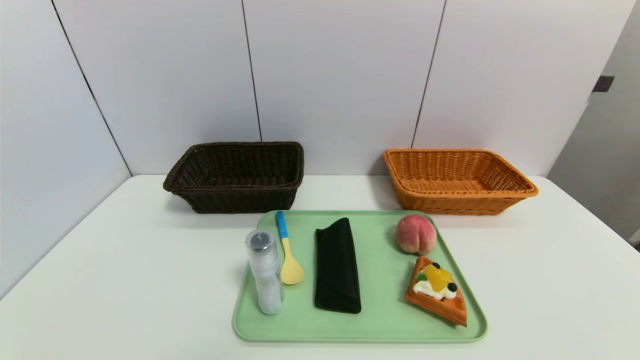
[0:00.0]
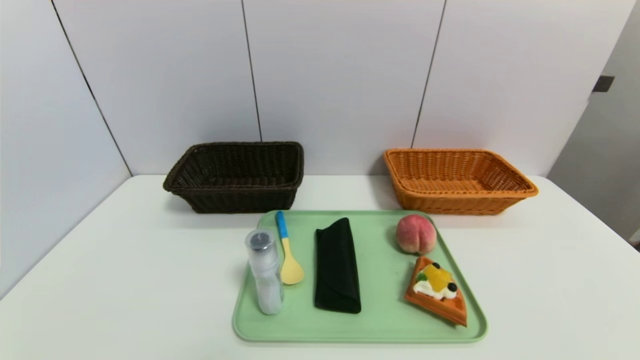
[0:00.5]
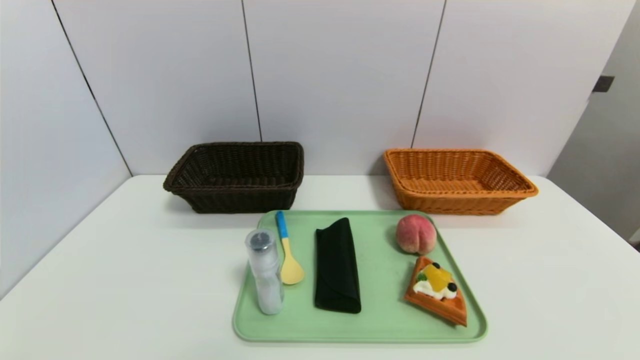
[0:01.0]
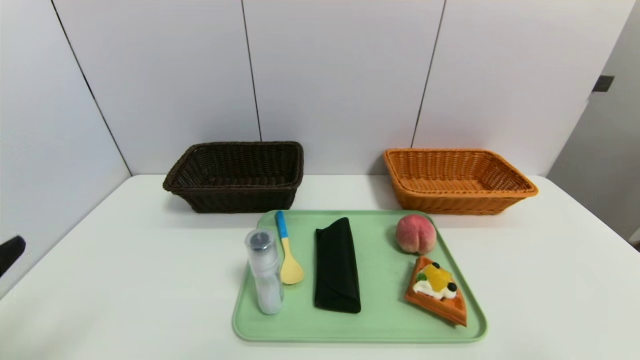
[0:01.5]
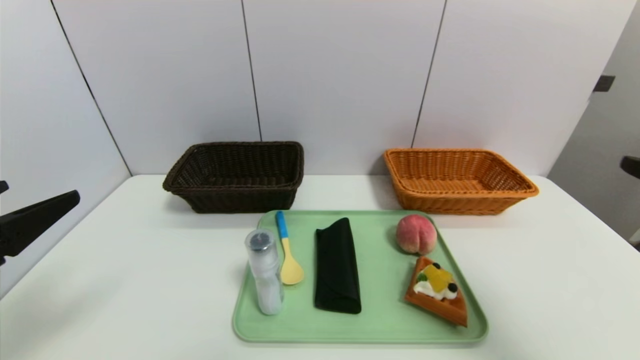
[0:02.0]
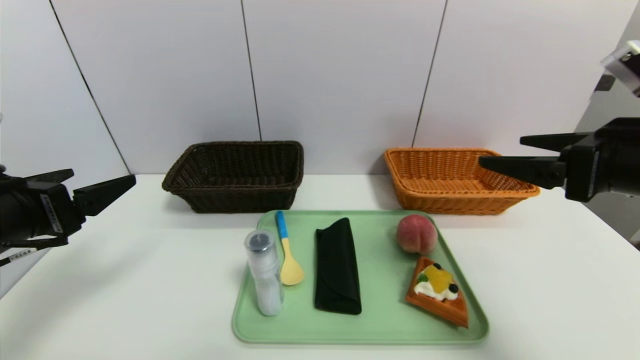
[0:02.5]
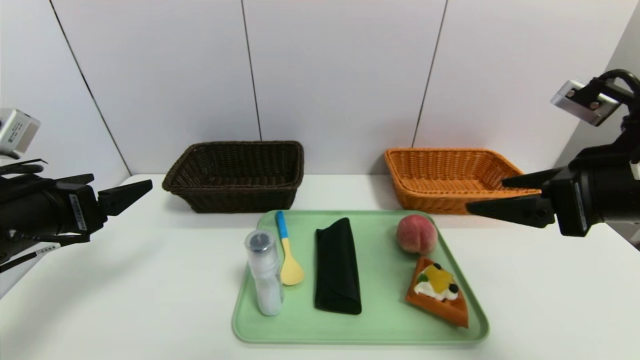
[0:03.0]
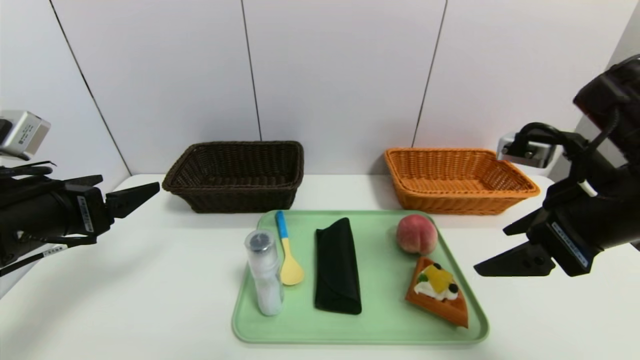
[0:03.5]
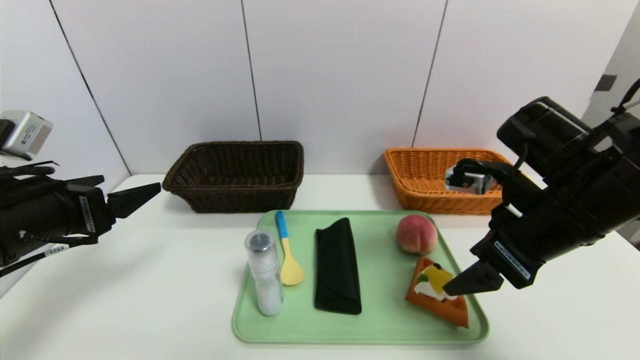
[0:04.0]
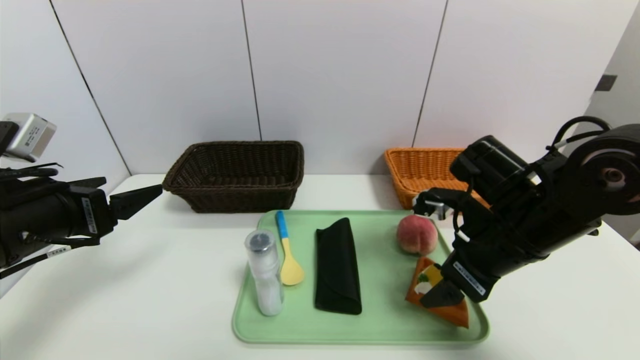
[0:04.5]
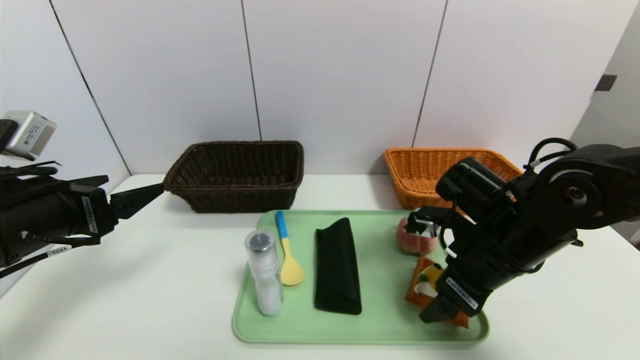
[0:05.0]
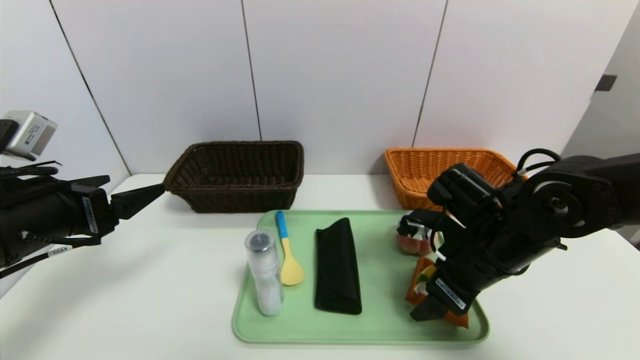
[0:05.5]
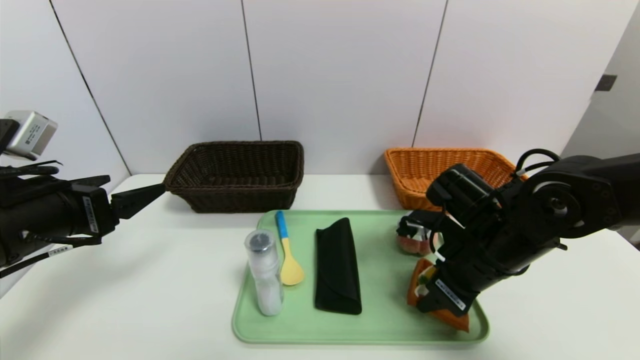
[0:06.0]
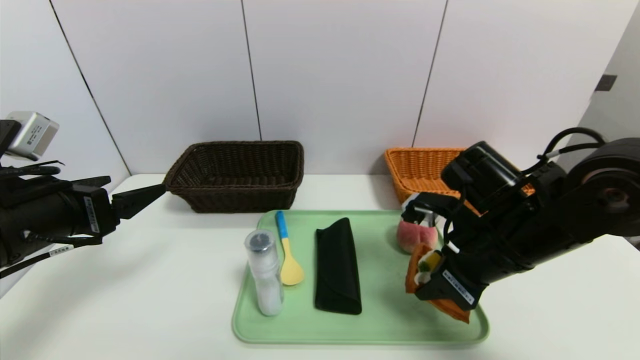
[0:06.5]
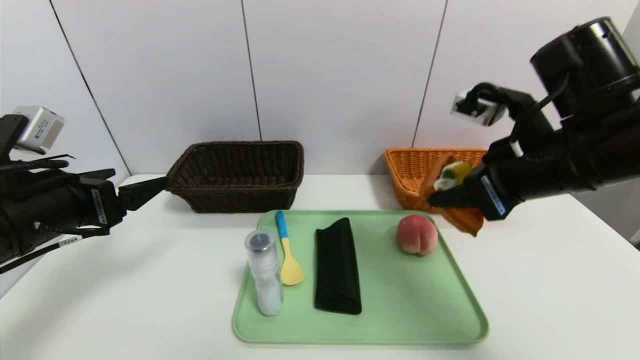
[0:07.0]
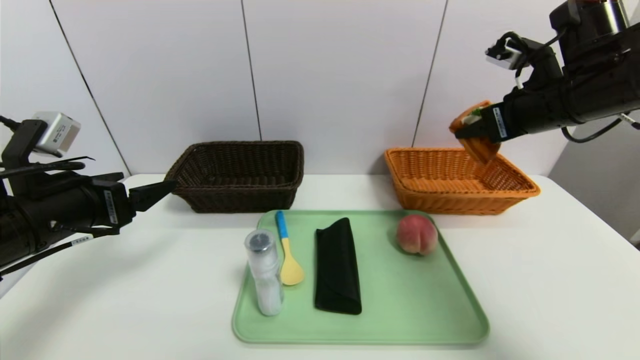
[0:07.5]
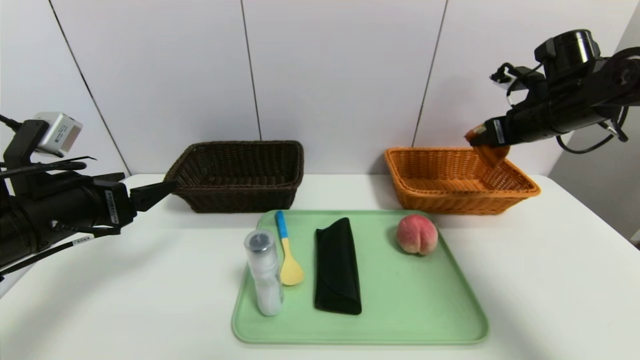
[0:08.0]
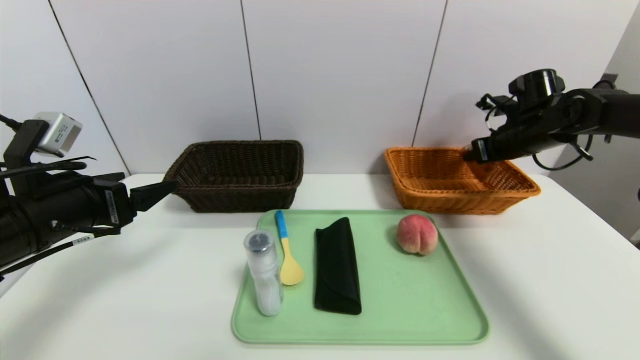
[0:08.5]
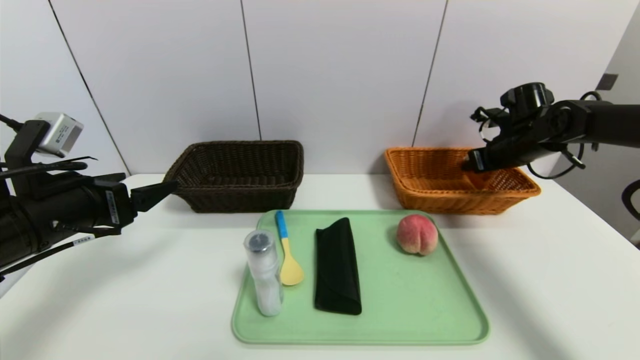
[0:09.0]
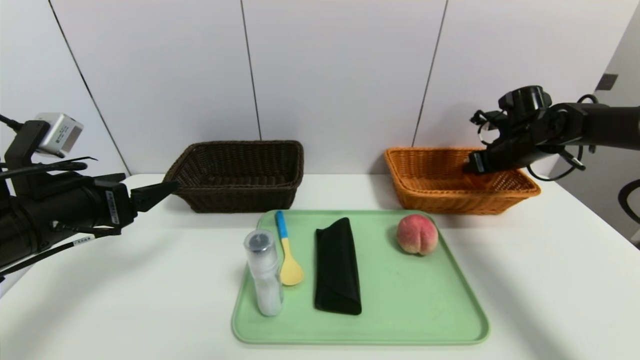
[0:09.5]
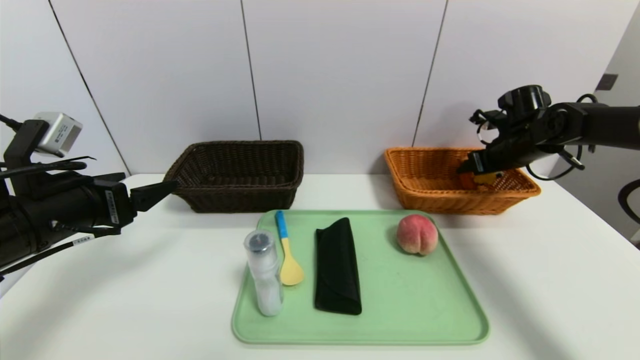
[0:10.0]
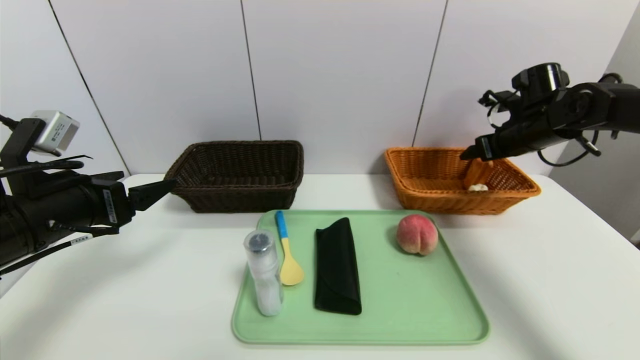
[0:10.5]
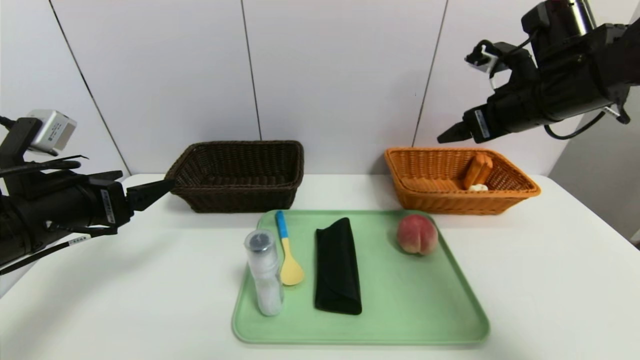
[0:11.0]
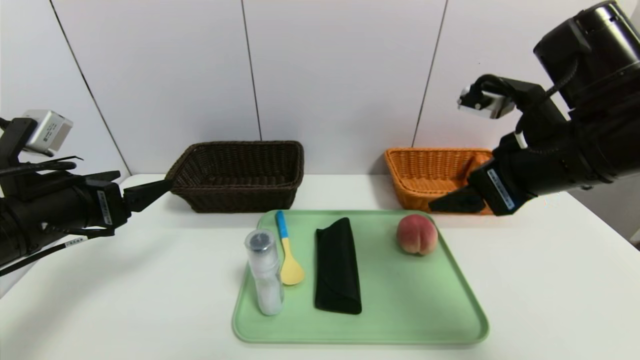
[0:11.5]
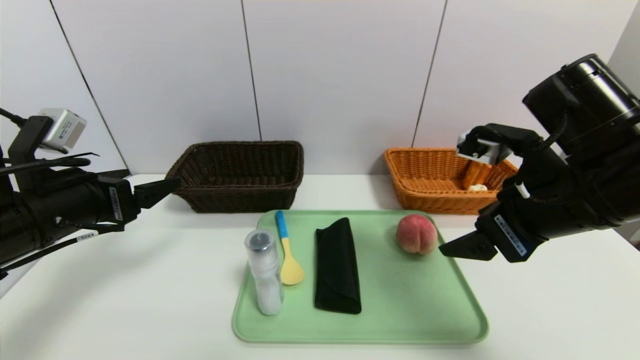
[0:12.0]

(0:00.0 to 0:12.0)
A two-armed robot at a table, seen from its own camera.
Task of the whole recording: place the food in the right basket with the right gripper, and place the non food items in the left basket with the left gripper.
Step, 0:00.0 - 0:10.5: Grasp the waffle and put it in the right basket.
0:00.0 - 0:02.0: Both grippers travel together upward and forward, roughly 25 cm.
0:02.0 - 0:04.0: The right gripper shifts roughly 15 cm forward, to the left and downward; the left gripper shifts about 10 cm forward.
0:04.0 - 0:06.0: The right gripper is displaced downward by roughly 10 cm, and closes its fingers.
0:06.0 - 0:08.0: The right gripper goes about 25 cm to the right, forward and upward.
0:08.0 - 0:10.0: The right gripper heads downward and forward, covering about 10 cm, and opens its fingers.
0:10.0 - 0:12.0: The right gripper travels backward and to the left by some 25 cm.

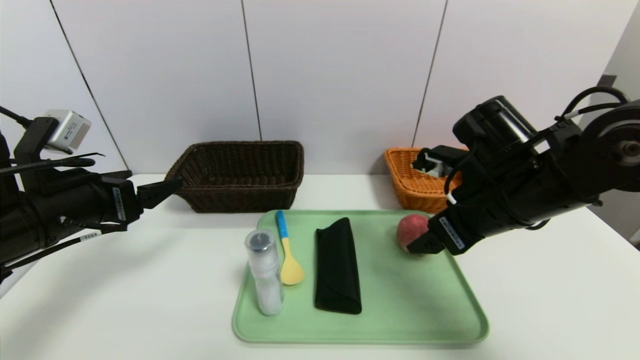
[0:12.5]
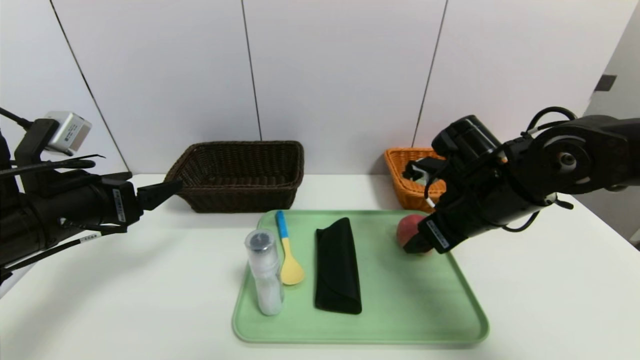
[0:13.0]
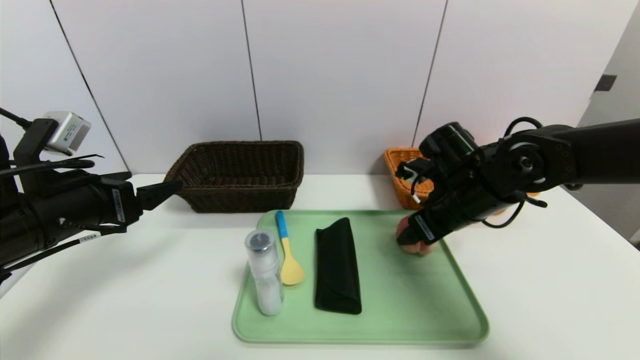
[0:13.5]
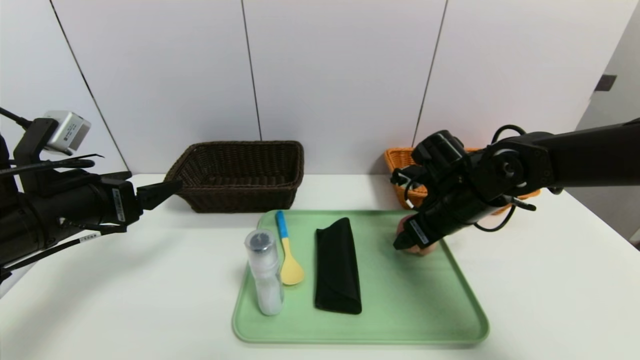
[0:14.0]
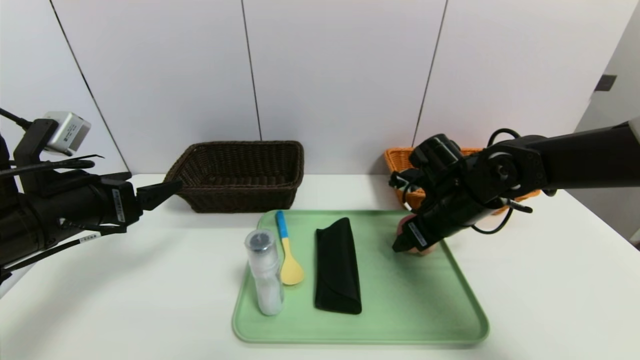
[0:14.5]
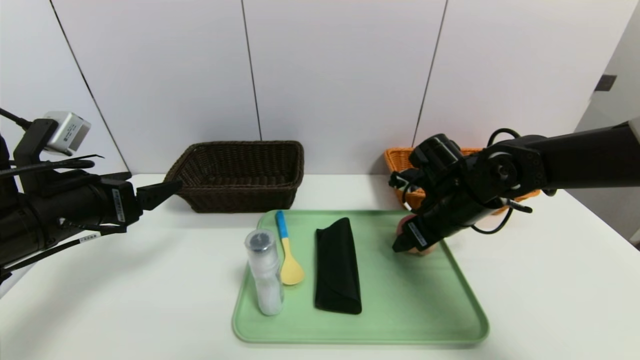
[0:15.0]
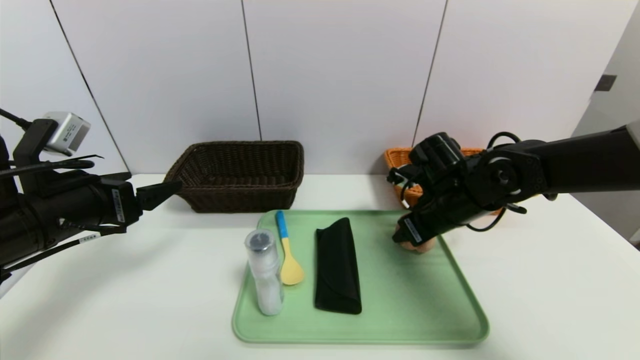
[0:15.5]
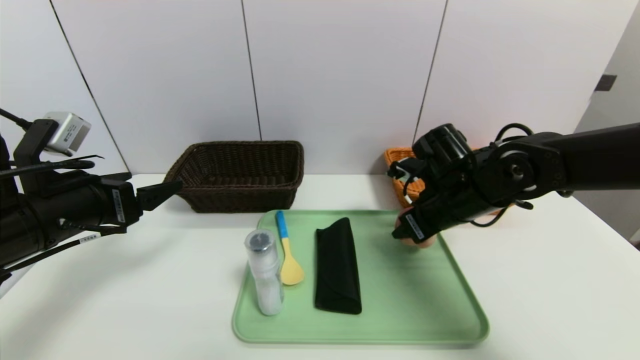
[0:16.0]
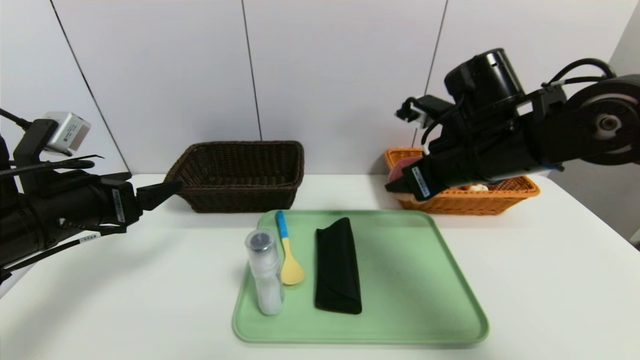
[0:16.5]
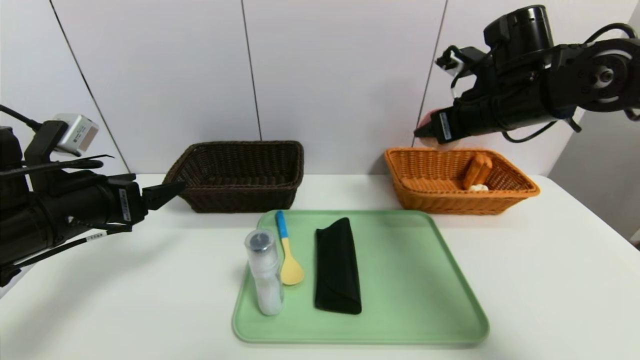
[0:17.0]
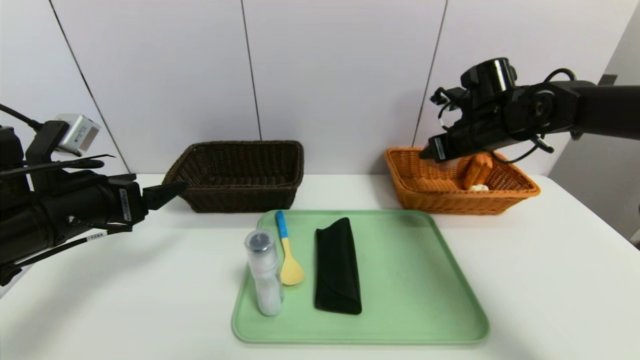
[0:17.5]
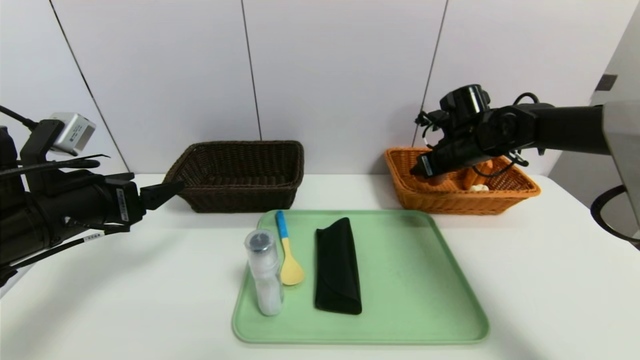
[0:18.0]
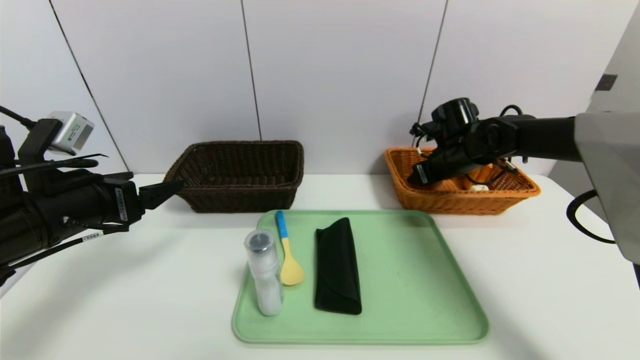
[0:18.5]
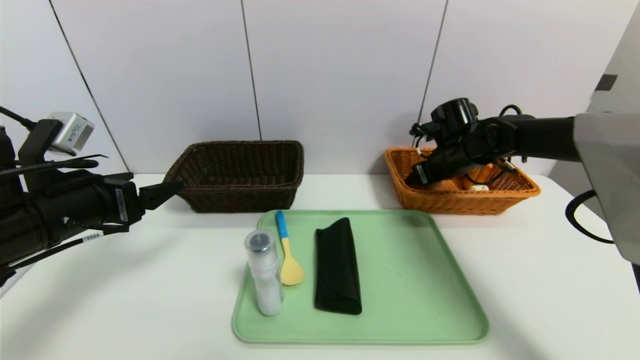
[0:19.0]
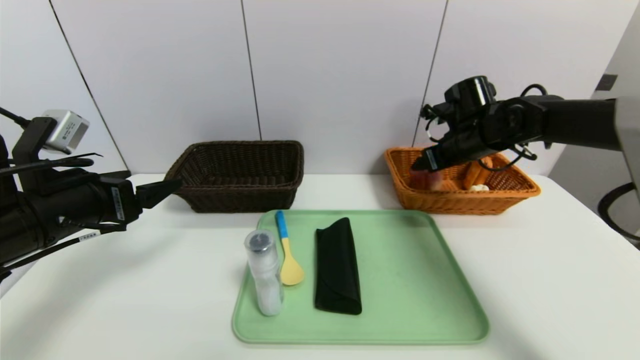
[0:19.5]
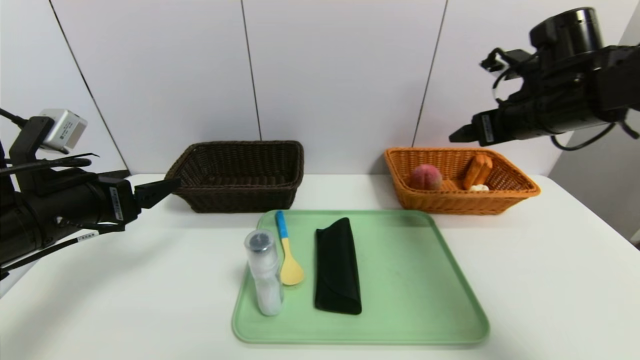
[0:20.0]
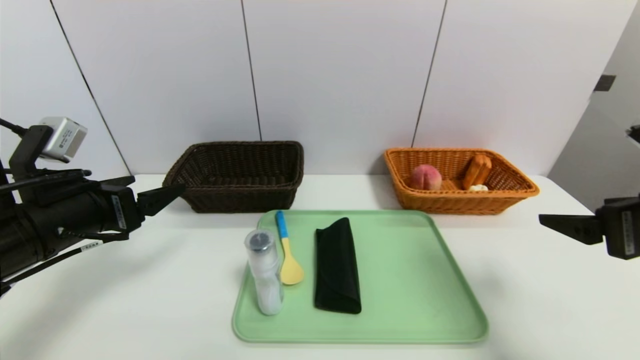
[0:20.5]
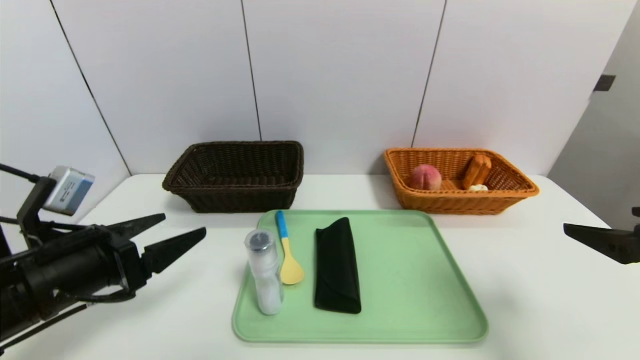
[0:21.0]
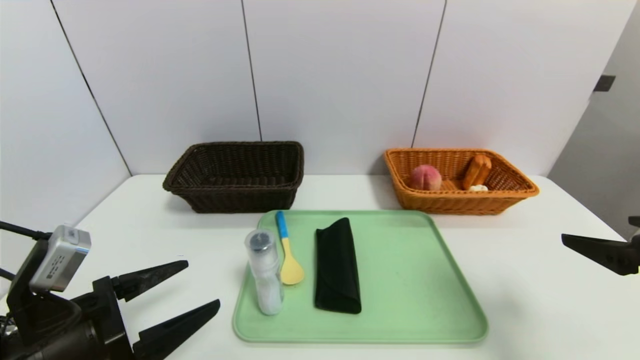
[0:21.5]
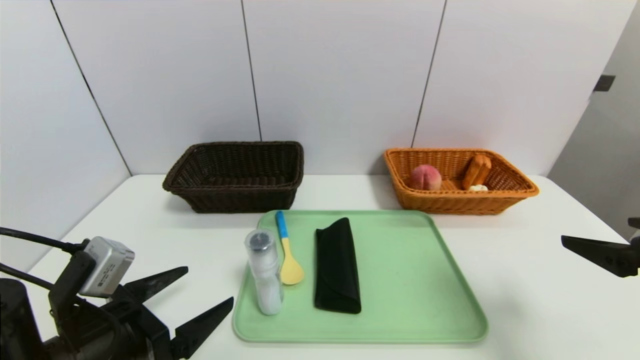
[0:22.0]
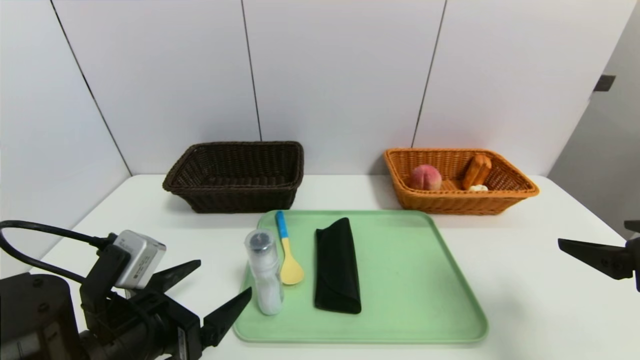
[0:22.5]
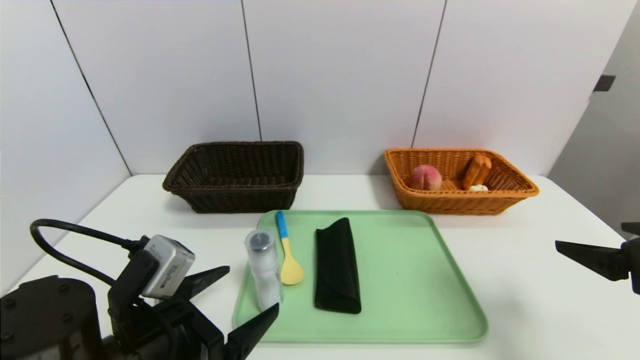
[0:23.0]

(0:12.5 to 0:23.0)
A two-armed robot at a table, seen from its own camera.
Task of the whole recording: place the food in the right basket with the right gripper, and place the non food items in the left basket with the left gripper.
Step, 0:12.5 - 0:19.5: Grasp the peach and put it in the right basket.
0:12.5 - 0:14.5: The right gripper travels forward and downward by some 10 cm.
0:14.5 - 0:16.5: The right gripper heads upward, covering some 10 cm, and closes up.
0:16.5 - 0:19.0: The right gripper moves forward, downward and to the right, about 20 cm, and opens.
0:19.0 - 0:21.0: The left gripper moves backward, roughly 5 cm. The right gripper shifts roughly 35 cm backward.
0:21.0 - 0:23.0: The left gripper heads to the right, covering roughly 10 cm.
